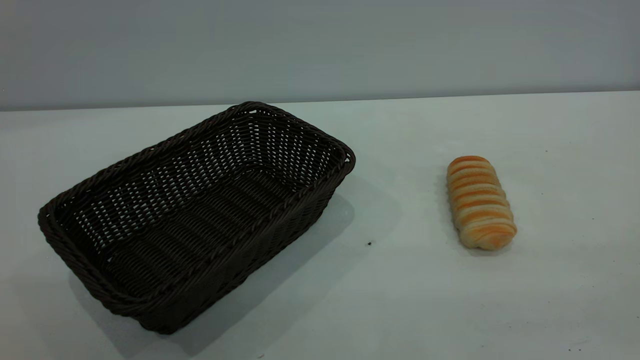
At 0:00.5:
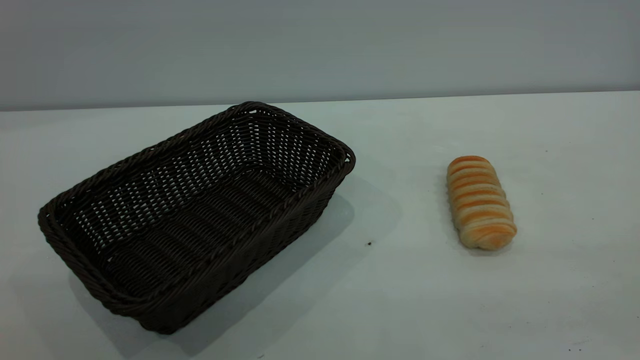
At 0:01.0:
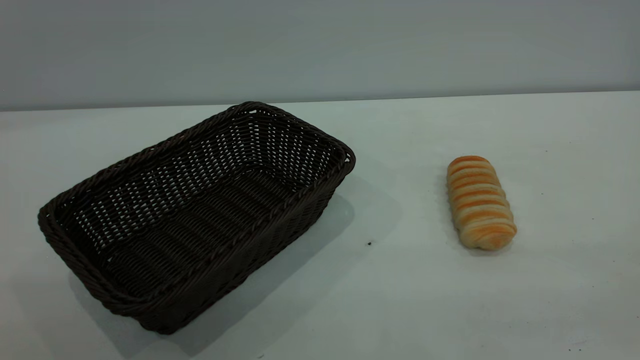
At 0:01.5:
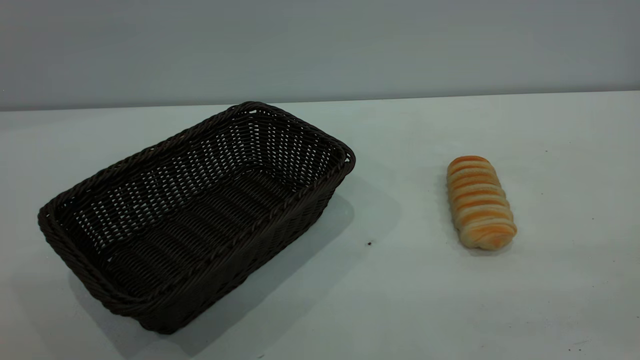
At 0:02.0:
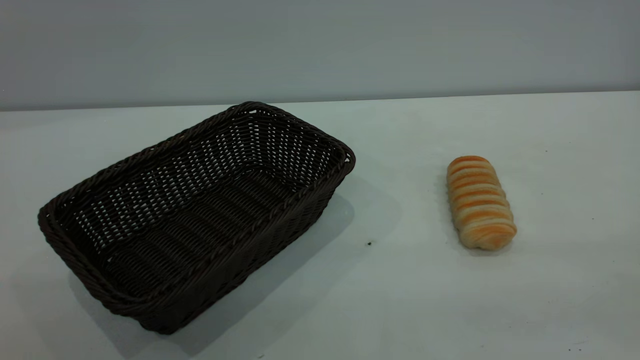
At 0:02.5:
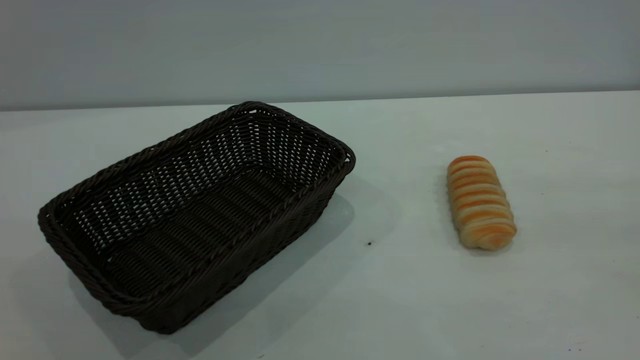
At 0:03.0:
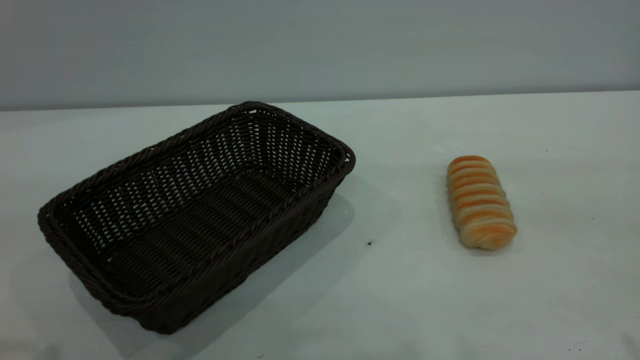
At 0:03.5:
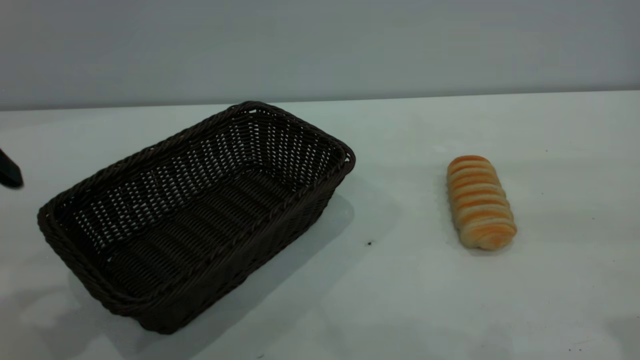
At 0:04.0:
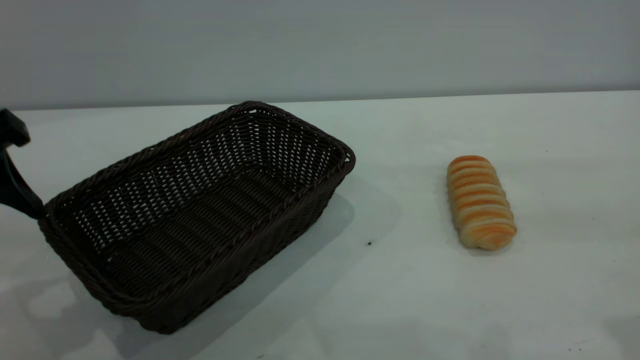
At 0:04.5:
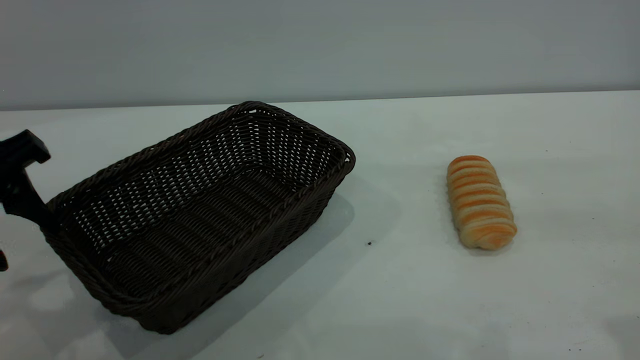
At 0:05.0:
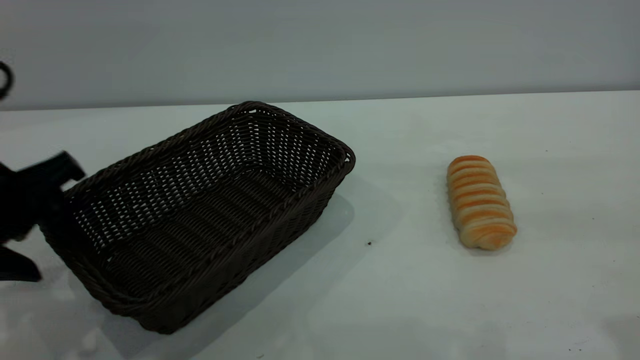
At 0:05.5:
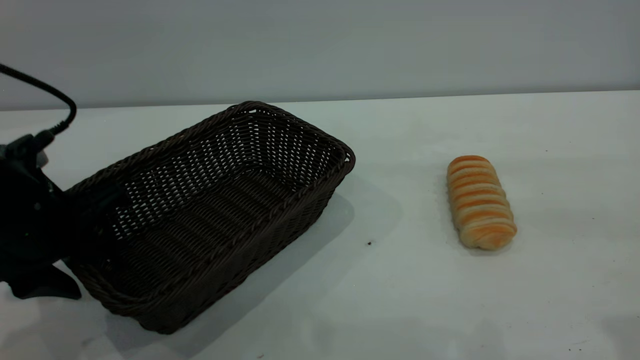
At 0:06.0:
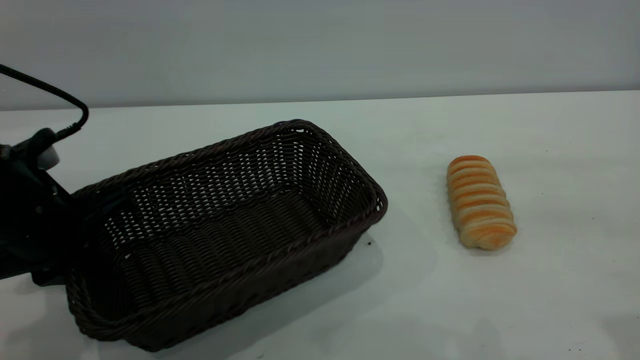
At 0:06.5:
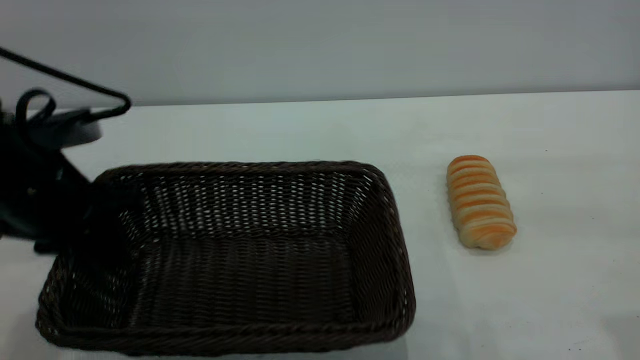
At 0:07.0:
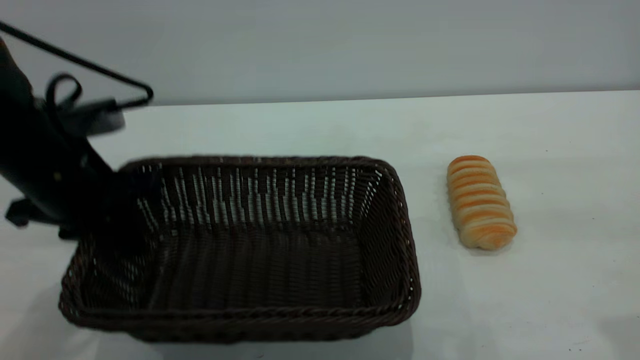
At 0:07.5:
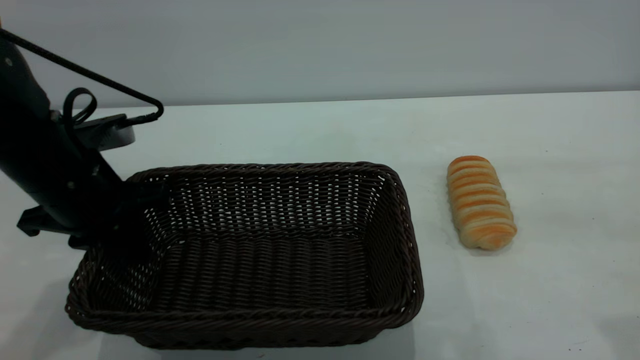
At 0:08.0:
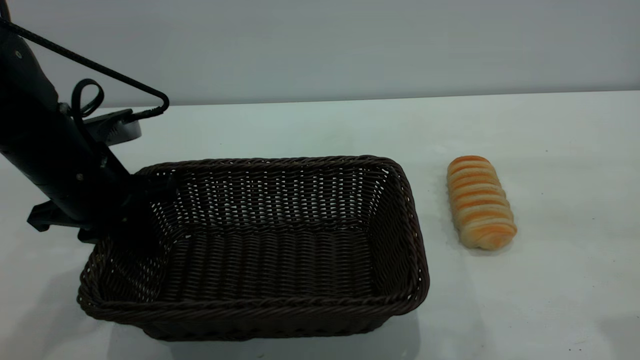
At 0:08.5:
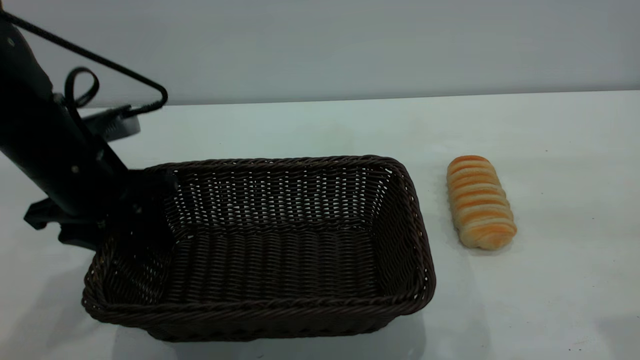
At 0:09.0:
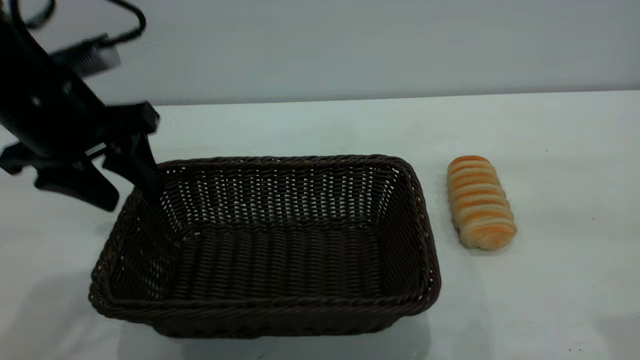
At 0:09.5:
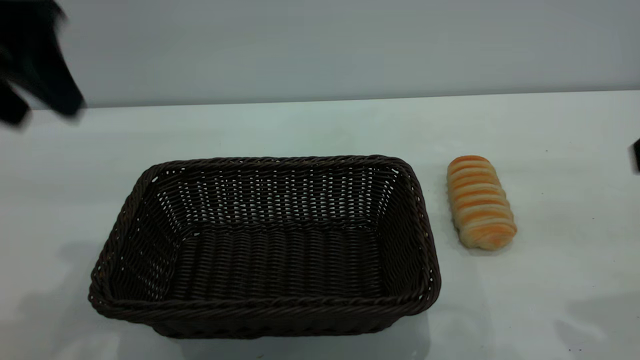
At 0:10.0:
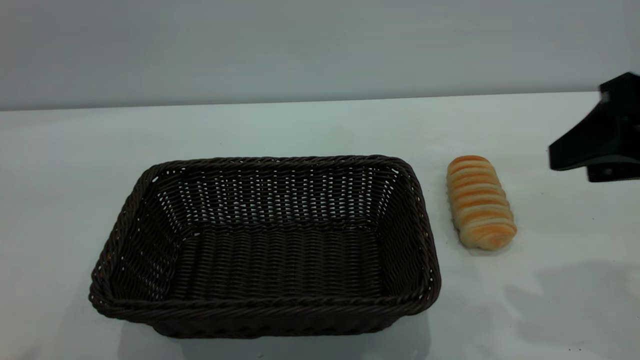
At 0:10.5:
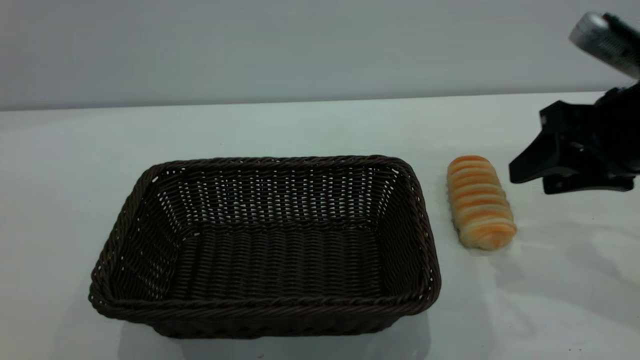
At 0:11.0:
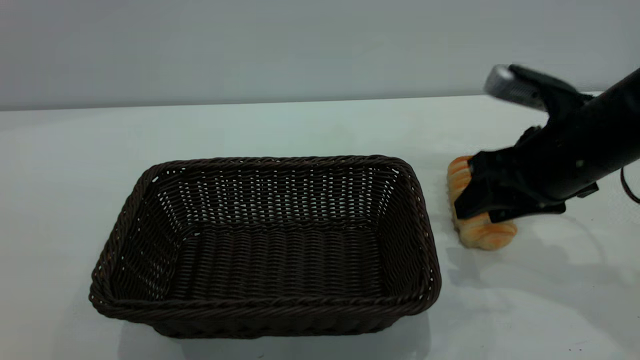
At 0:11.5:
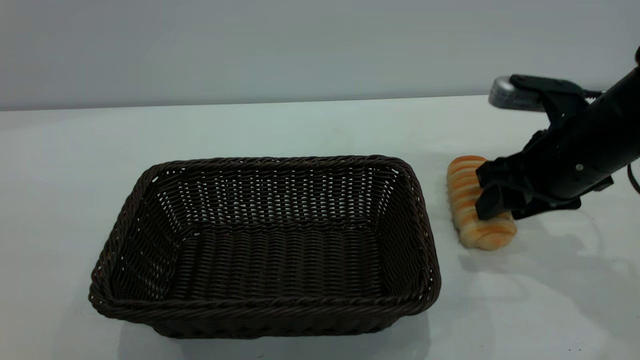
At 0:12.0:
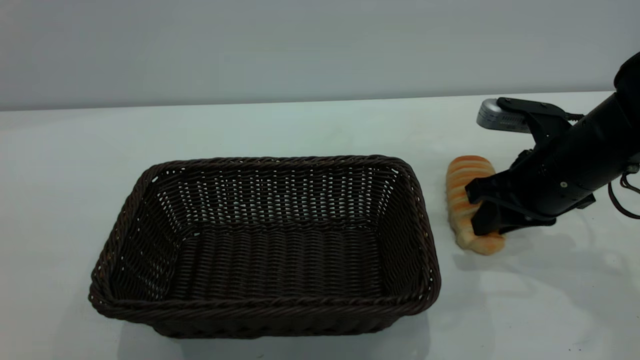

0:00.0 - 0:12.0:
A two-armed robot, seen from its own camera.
Task of the whole recording: One hand grasps the black basket and places it in the middle of the table, while the other hand picks up the long bread and puts it into the black basket.
Step, 0:00.0 - 0:09.0: Move the basket to the center of view.
0:02.0 - 0:04.0: The left gripper is displaced forward and downward by some 25 cm.
0:04.0 - 0:06.0: The left gripper goes about 10 cm downward, and closes.
0:06.0 - 0:08.0: The left gripper heads forward, covering approximately 5 cm.
0:08.0 - 0:10.0: The left gripper travels upward and backward by some 40 cm, and opens its fingers, while the right gripper travels downward and forward by roughly 10 cm.
0:10.0 - 0:12.0: The right gripper moves downward and forward, some 15 cm, and closes up.

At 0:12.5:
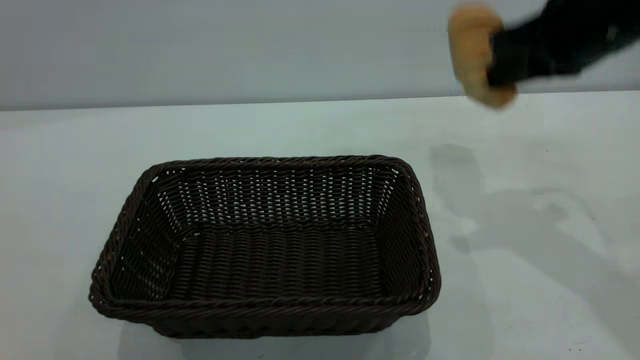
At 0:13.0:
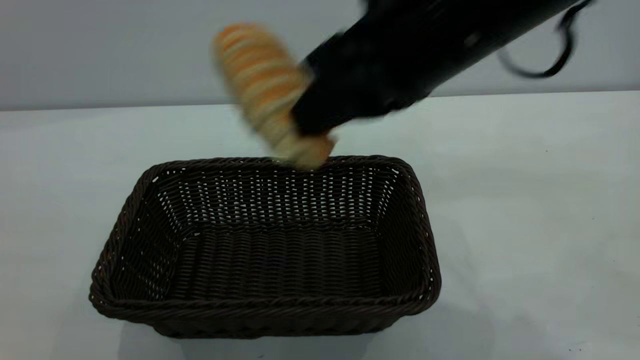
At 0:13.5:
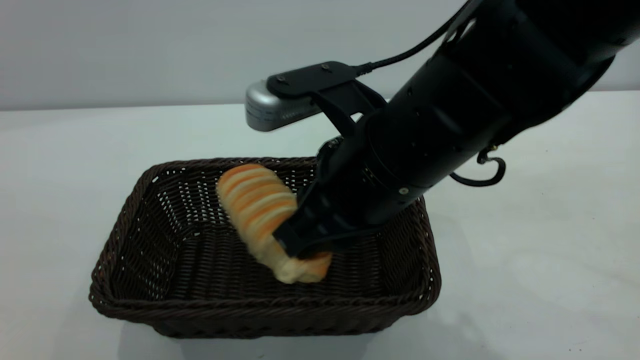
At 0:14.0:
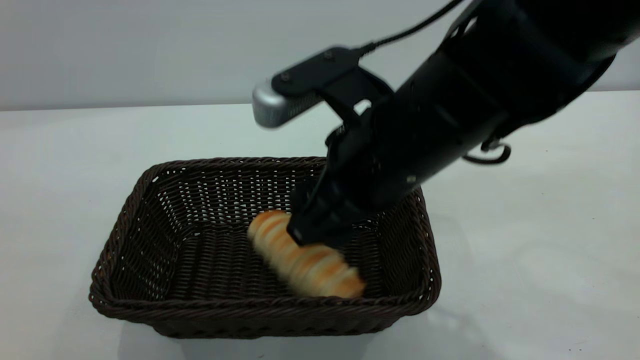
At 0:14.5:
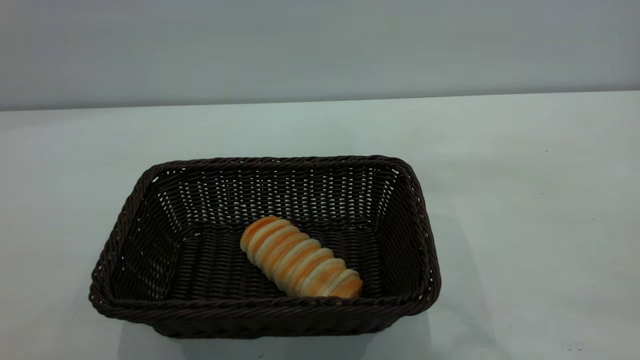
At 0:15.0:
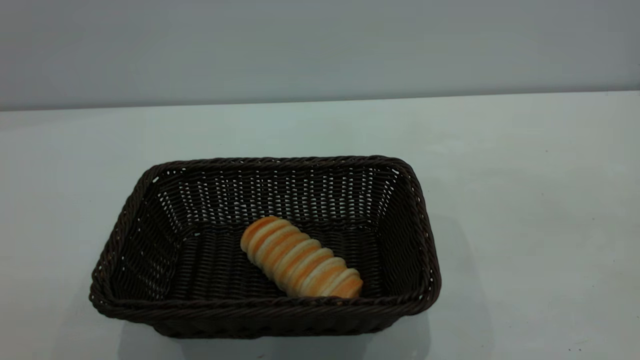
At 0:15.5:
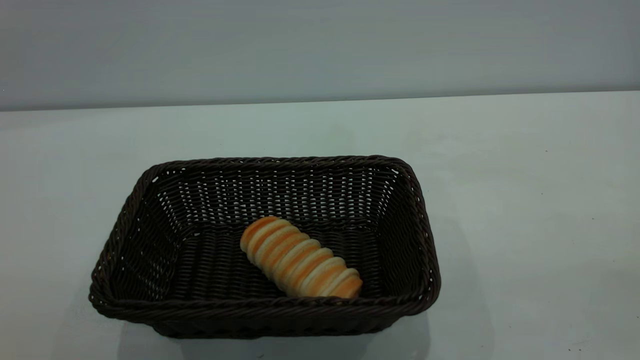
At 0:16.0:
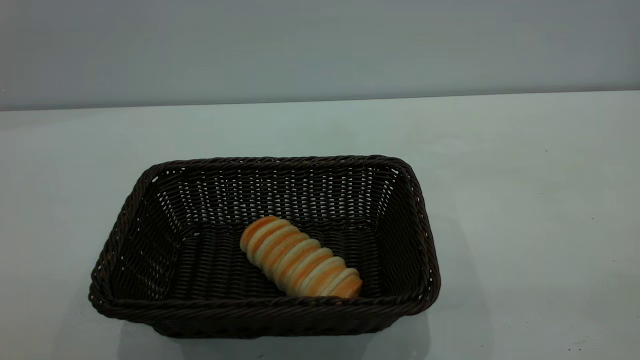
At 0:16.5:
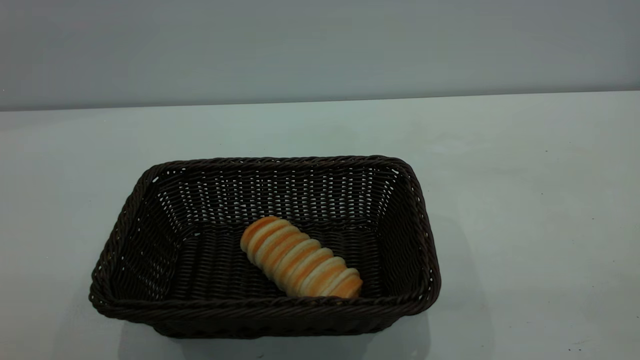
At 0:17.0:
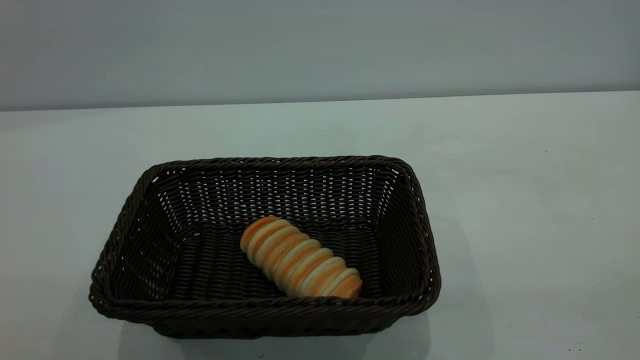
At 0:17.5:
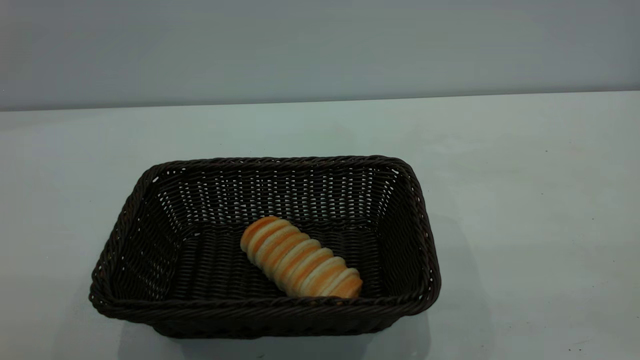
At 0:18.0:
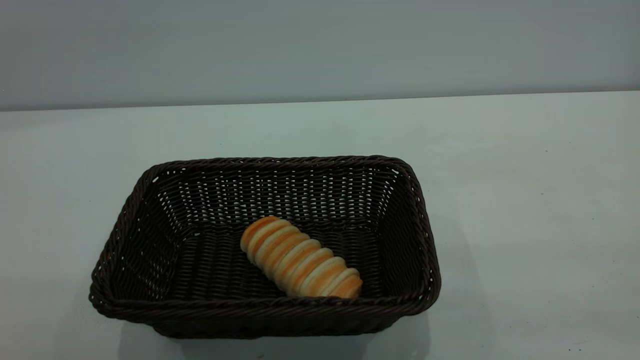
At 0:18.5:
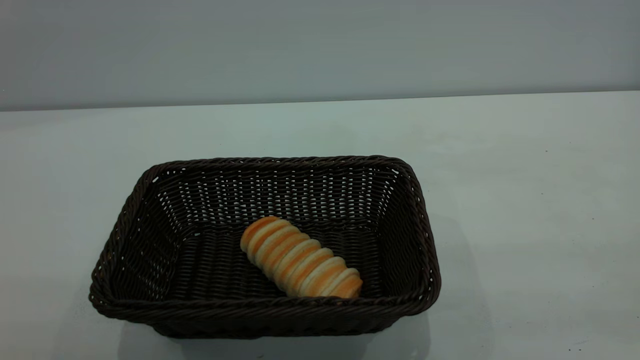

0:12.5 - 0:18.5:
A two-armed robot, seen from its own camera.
Task of the whole recording: One hand grasps the black basket and places it in the middle of the table, while the other hand picks up the long bread and puts it into the black basket.
Step, 0:12.5 - 0:14.0: place the bread into the basket.
0:12.5 - 0:14.5: The left gripper ends up approximately 5 cm from where it was. The right gripper is displaced backward, to the left and upward by approximately 25 cm, and opens its fingers.

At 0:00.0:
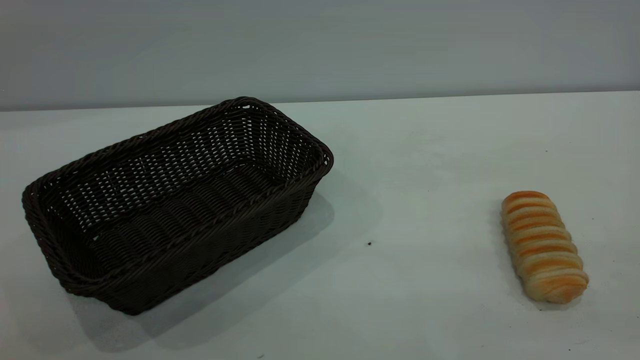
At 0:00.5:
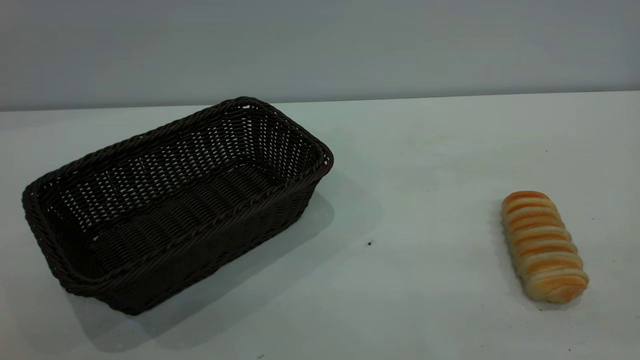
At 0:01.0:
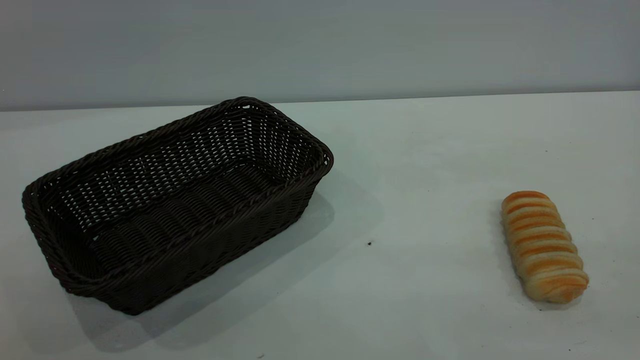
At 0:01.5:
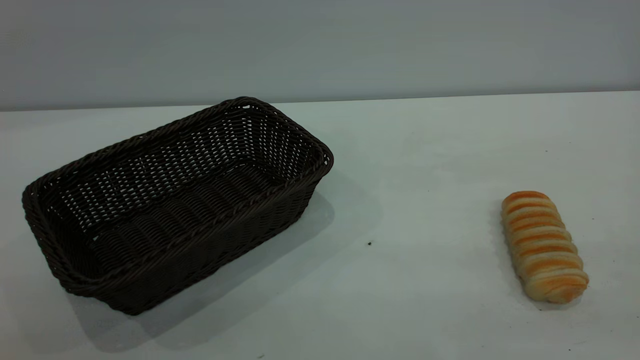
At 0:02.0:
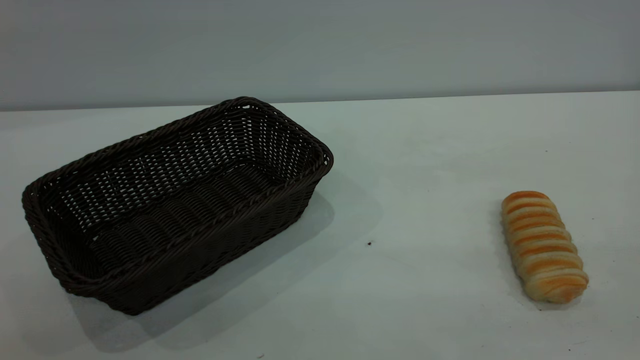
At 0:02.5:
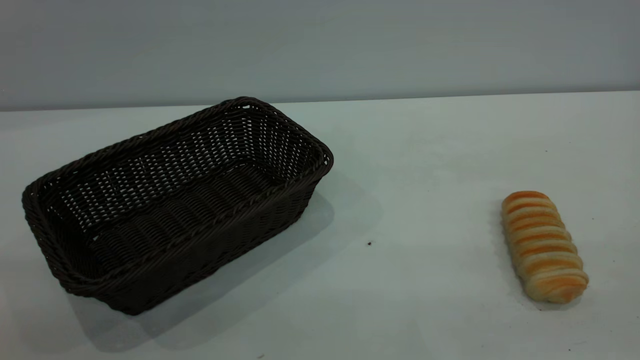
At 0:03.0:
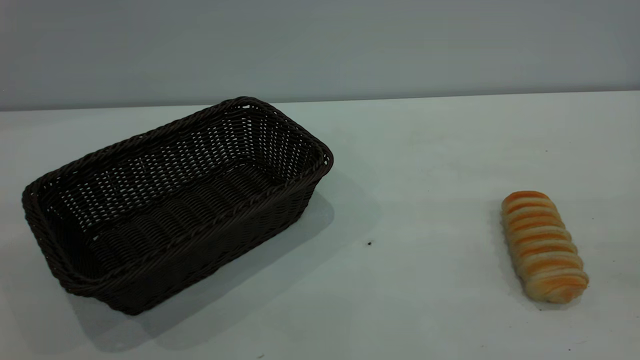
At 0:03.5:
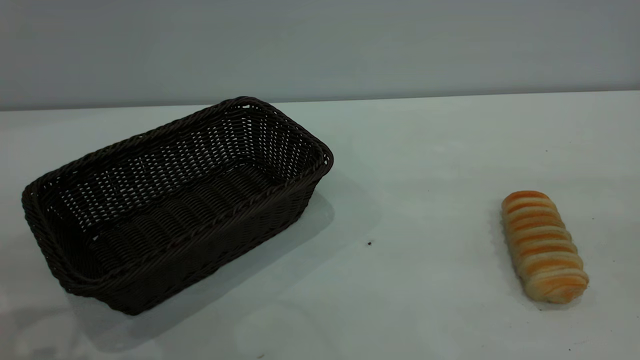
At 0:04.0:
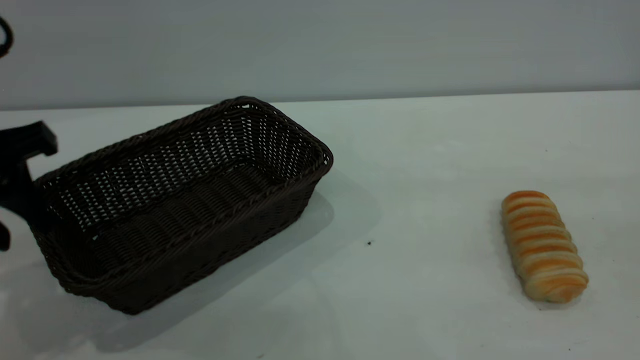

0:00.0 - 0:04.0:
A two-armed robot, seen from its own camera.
Task of the whole recording: One hand grasps the black basket and places it in the middle of the table, while the other hand picks up the long bread and puts it into the black basket.
0:02.0 - 0:04.0: The left gripper heads forward and downward, covering roughly 30 cm.
